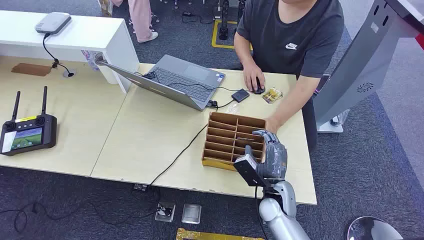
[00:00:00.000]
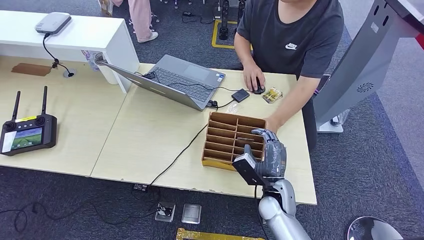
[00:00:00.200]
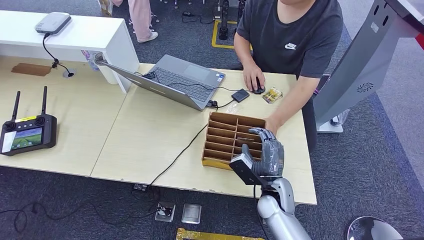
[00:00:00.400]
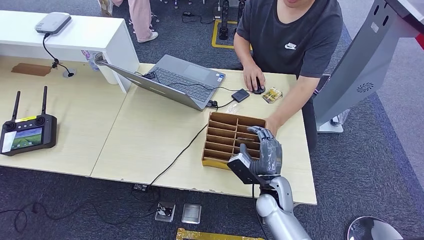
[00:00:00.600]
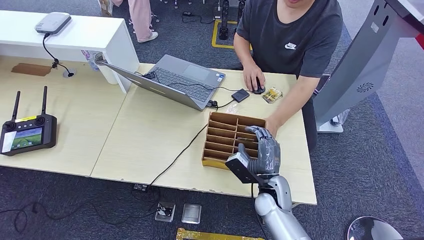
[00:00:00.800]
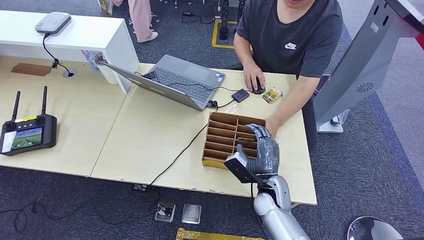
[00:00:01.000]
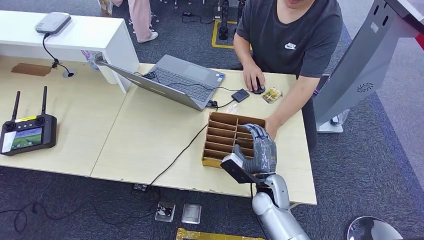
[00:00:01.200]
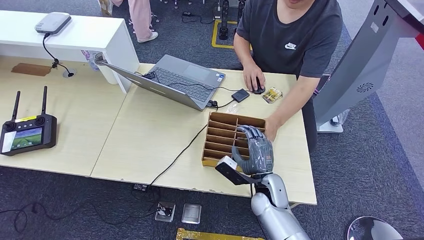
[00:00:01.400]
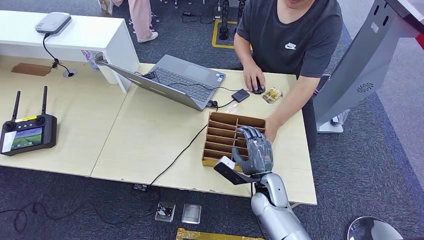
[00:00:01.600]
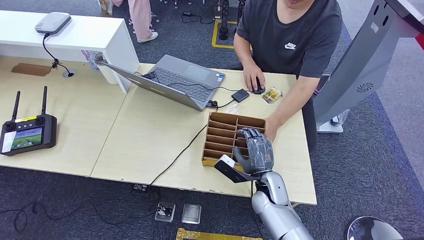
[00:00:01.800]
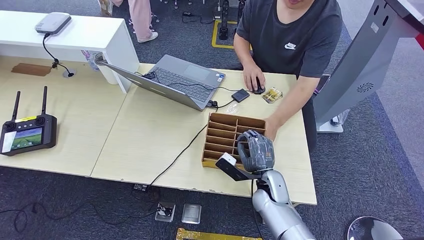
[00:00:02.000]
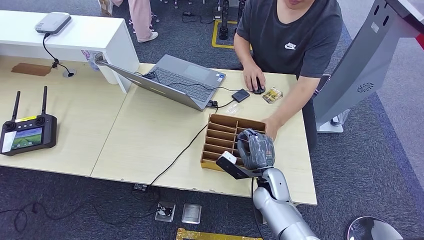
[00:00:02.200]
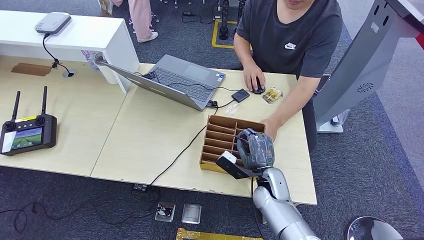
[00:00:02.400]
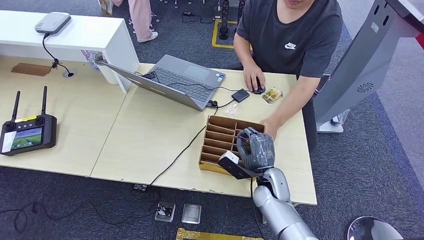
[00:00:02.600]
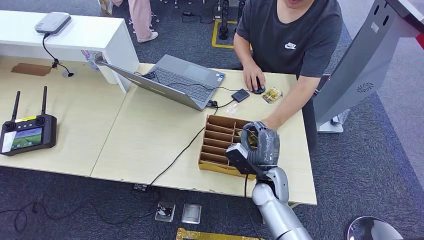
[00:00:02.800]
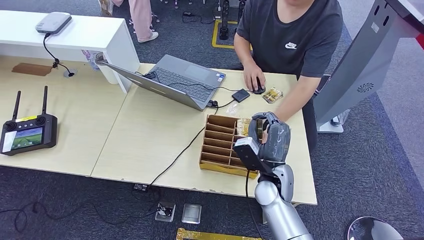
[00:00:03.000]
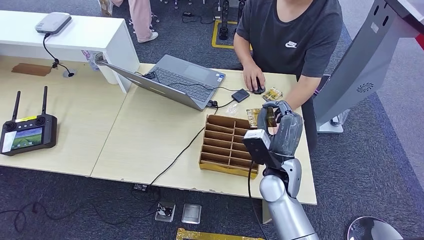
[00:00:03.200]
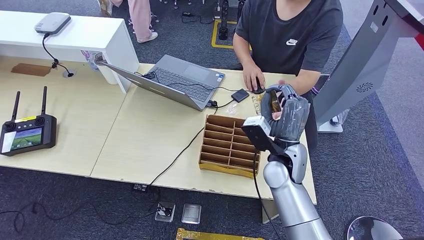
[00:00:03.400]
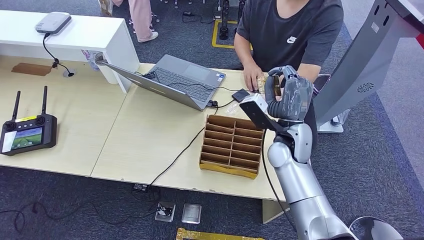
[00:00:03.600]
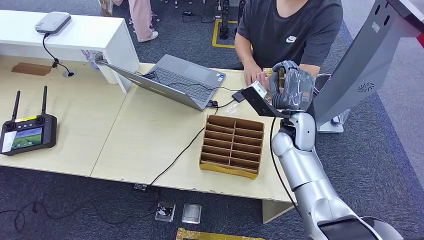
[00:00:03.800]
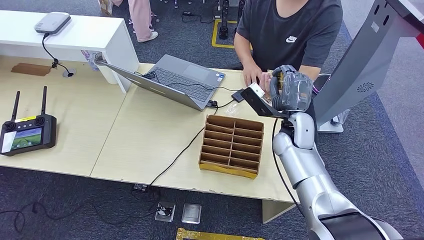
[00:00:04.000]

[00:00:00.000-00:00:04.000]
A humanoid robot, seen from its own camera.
Step, 00:00:00.000 to 00:00:02.400: Pick up the room card from the card holder.
Step, 00:00:02.800 to 00:00:04.000: Hand the room card to the target.
00:00:01.400 to 00:00:02.600: The hands make only small movements.
00:00:02.600 to 00:00:04.000: The right hand is displaced upward and forward by approximately 15 cm.
